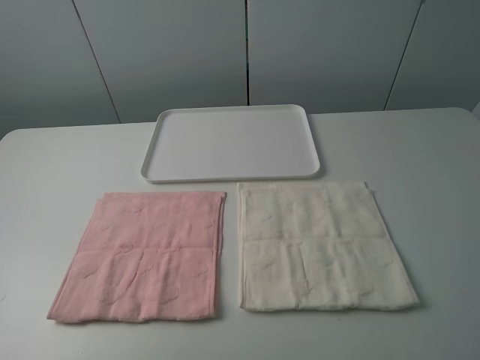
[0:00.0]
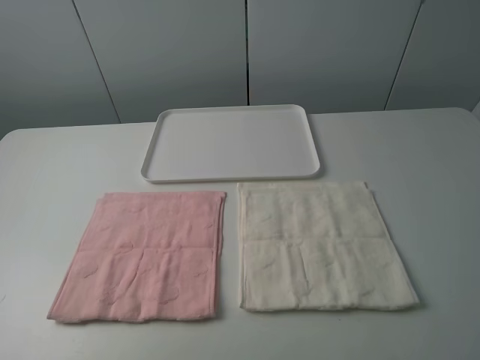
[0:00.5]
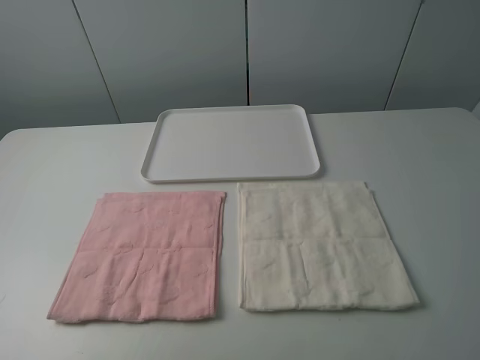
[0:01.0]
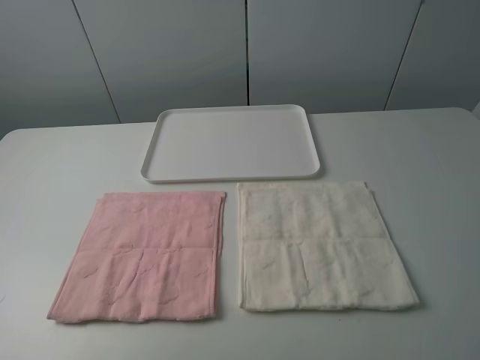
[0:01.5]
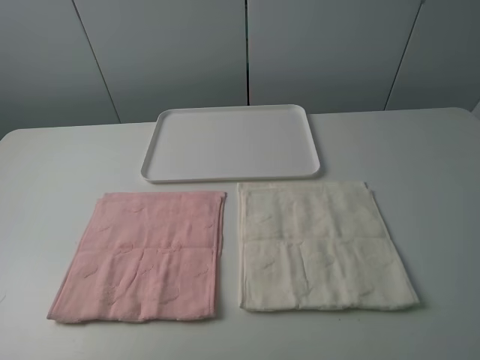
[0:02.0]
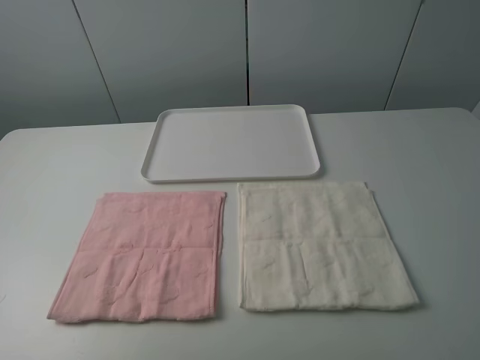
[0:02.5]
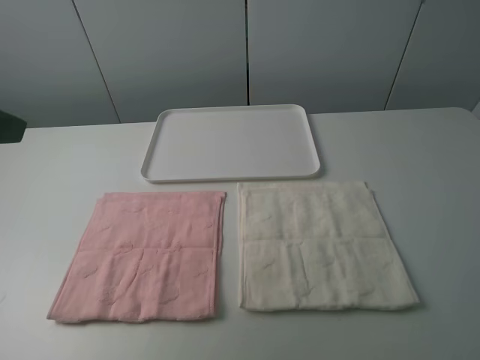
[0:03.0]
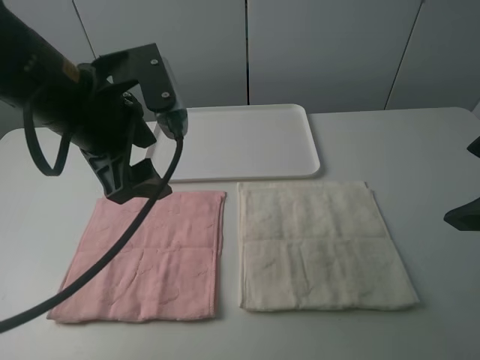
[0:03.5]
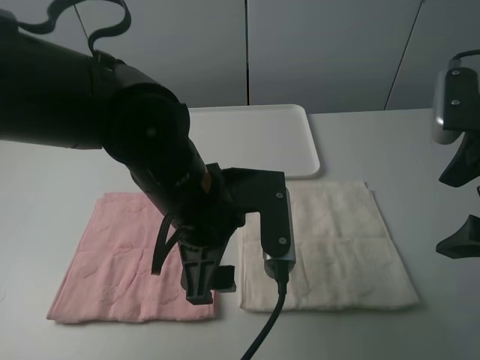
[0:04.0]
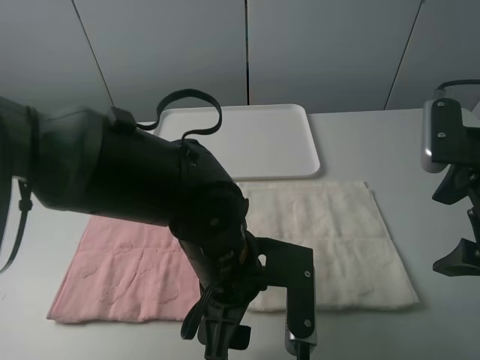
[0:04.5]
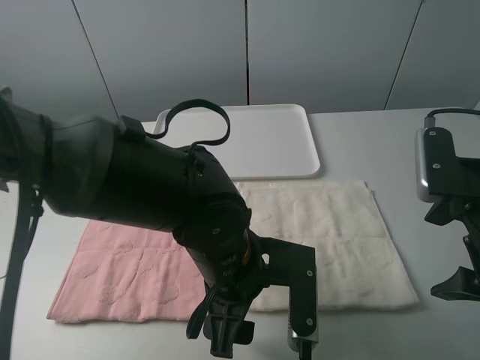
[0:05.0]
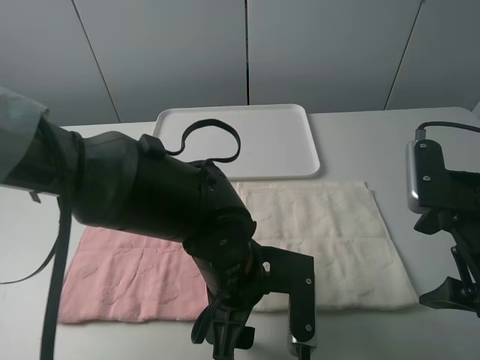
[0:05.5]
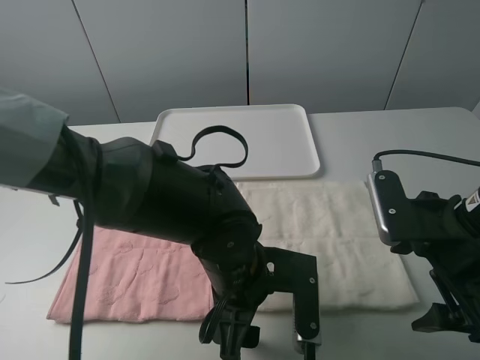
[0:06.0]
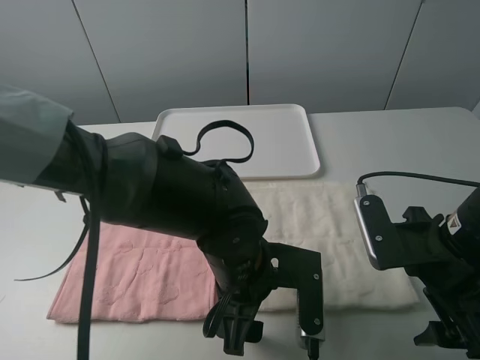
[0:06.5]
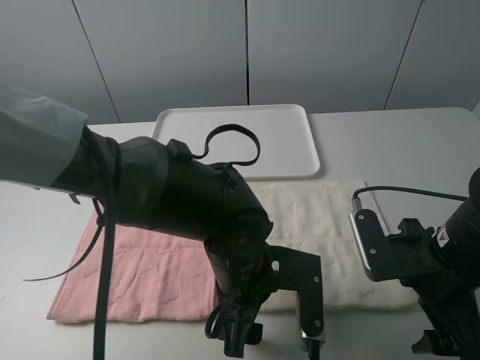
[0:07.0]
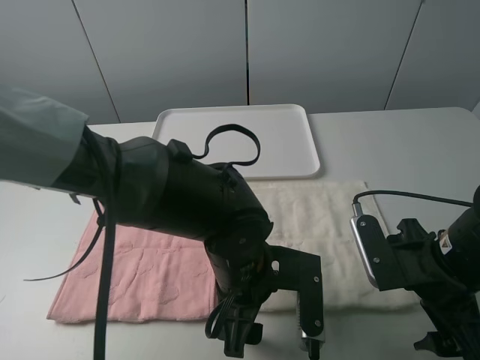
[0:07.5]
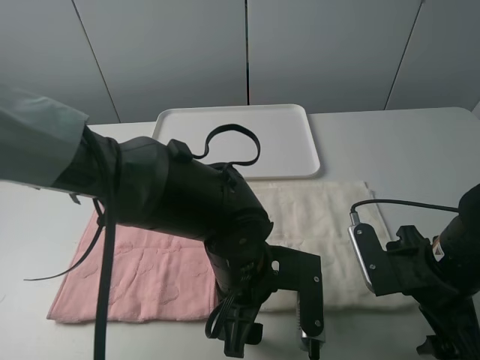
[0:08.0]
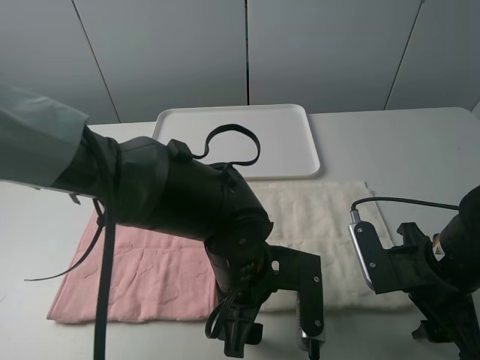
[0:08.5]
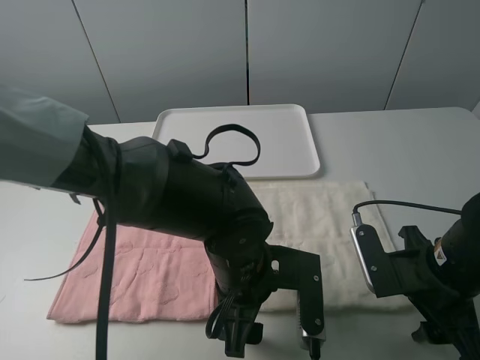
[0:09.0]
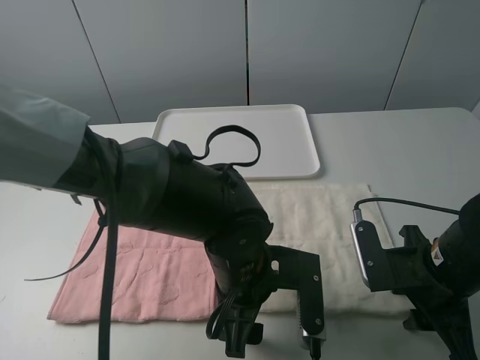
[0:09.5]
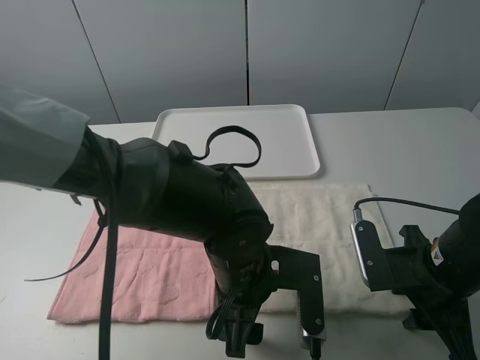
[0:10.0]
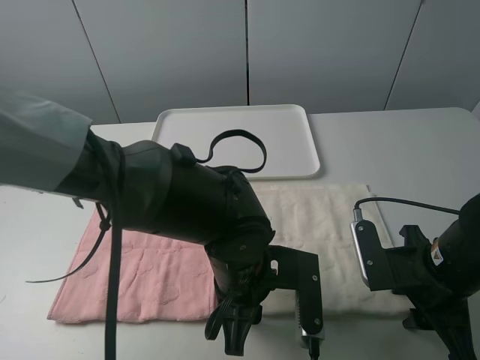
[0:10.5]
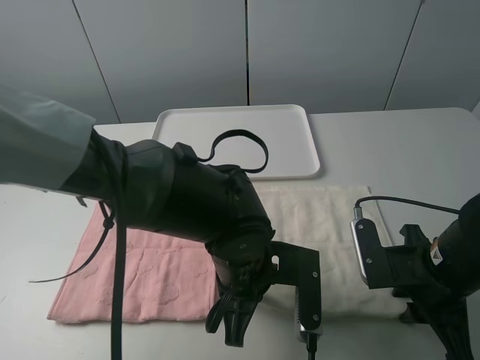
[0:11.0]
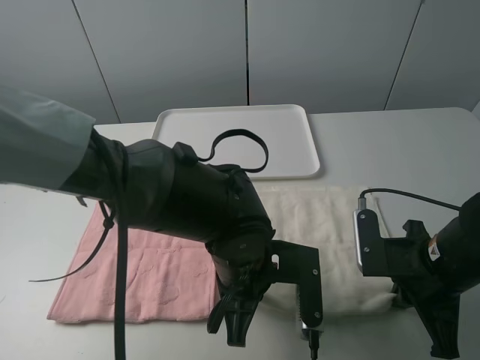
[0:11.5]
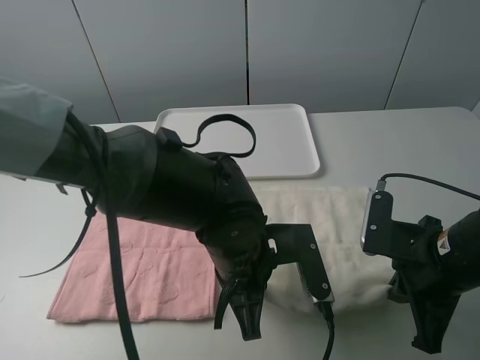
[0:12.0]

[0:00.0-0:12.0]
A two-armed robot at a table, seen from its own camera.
Task of the whole recording: fold one of the towels by two grippers and place it on the tray,then fold another towel by two grippers and place it on the folded towel.
Step, 0:00.0 to 0:11.0: Grasp the white towel with the left gripper.
0:00.0 to 0:02.0: Both grippers stay about where they are.
0:02.0 to 0:04.0: The right gripper moves forward, some 20 cm; the left gripper shifts about 35 cm to the right and forward.
0:04.0 to 0:06.0: Both grippers travel together downward, roughly 10 cm.
0:06.0 to 0:08.0: The right gripper travels downward by roughly 5 cm.
0:08.0 to 0:10.0: The right gripper closes.
0:10.0 to 0:12.0: The left gripper closes, while the right gripper closes its fingers.

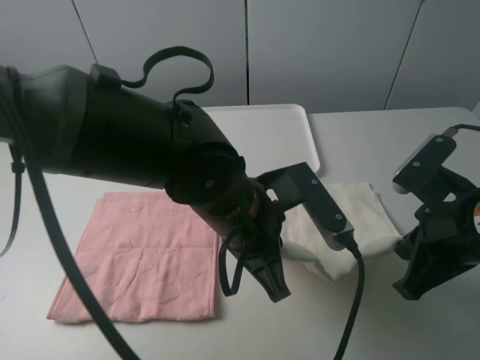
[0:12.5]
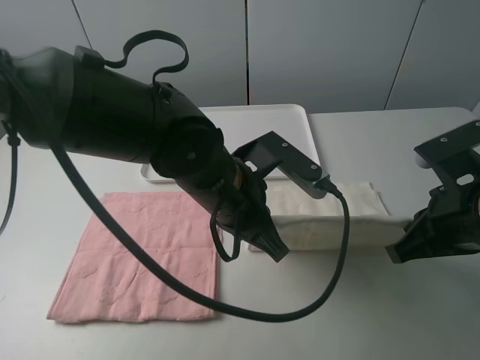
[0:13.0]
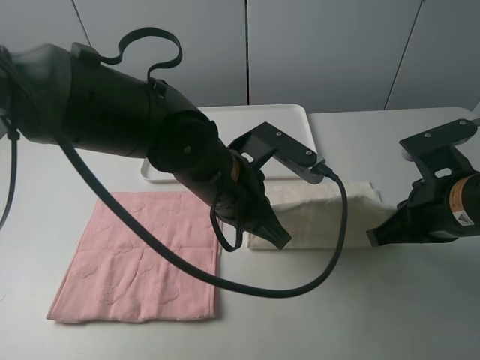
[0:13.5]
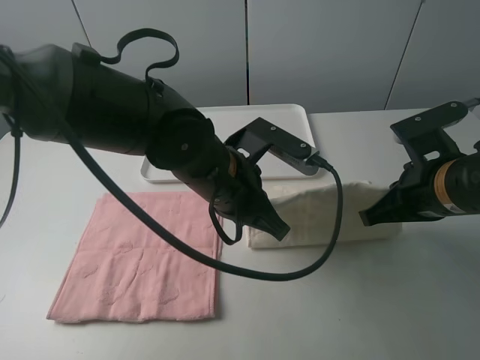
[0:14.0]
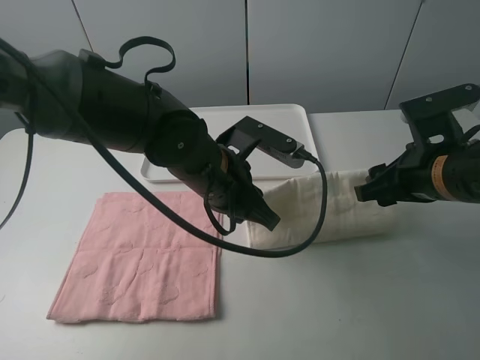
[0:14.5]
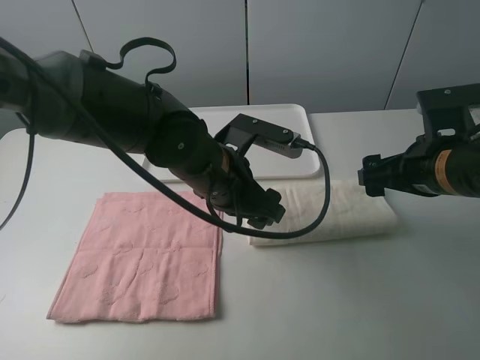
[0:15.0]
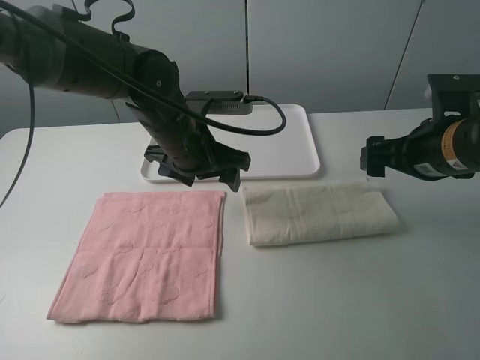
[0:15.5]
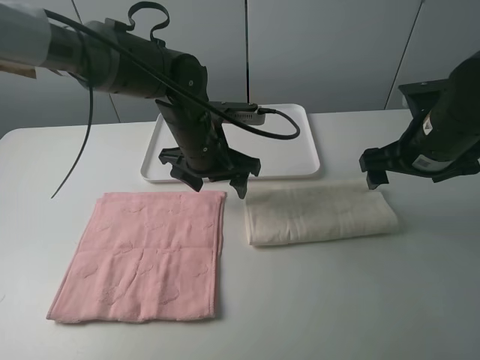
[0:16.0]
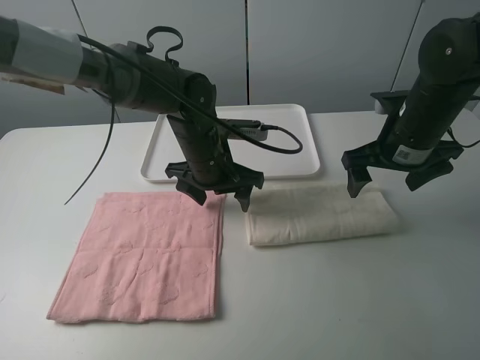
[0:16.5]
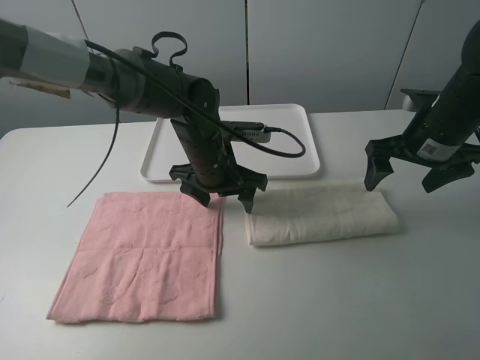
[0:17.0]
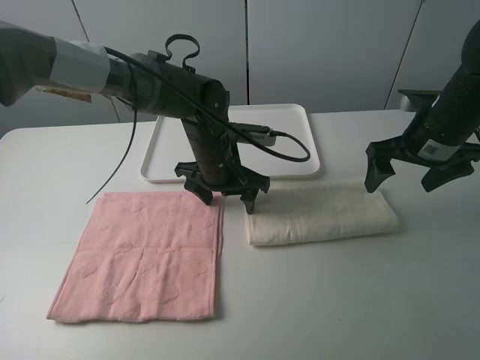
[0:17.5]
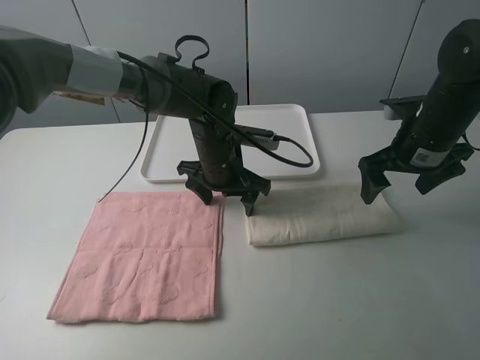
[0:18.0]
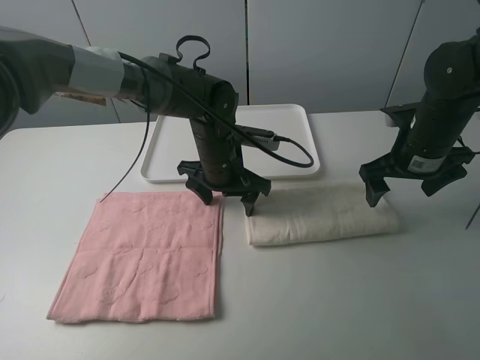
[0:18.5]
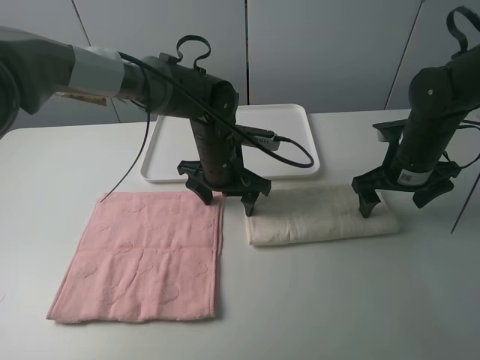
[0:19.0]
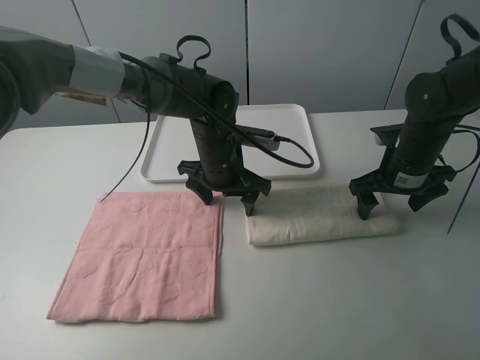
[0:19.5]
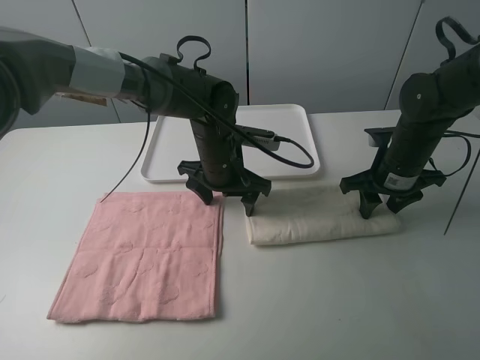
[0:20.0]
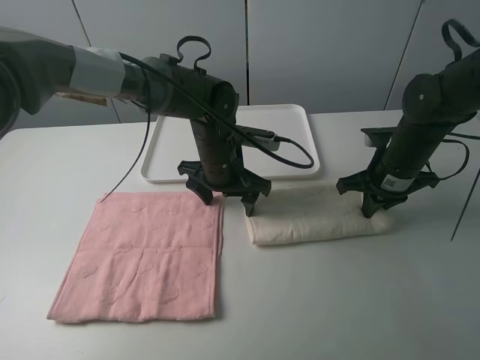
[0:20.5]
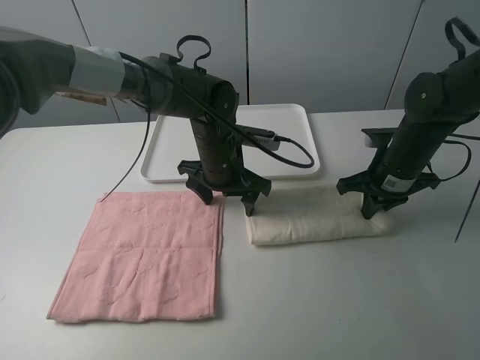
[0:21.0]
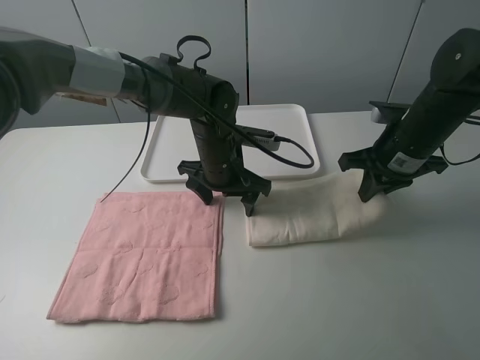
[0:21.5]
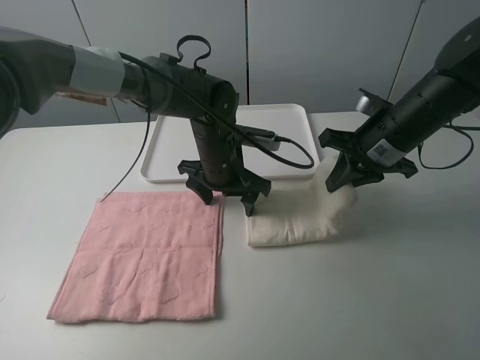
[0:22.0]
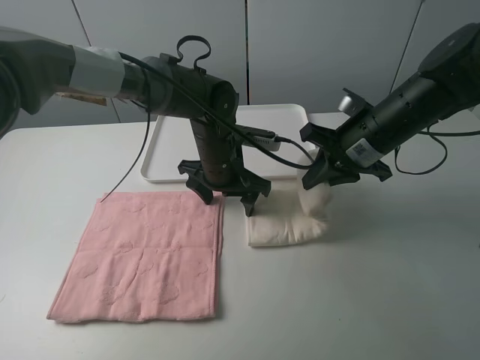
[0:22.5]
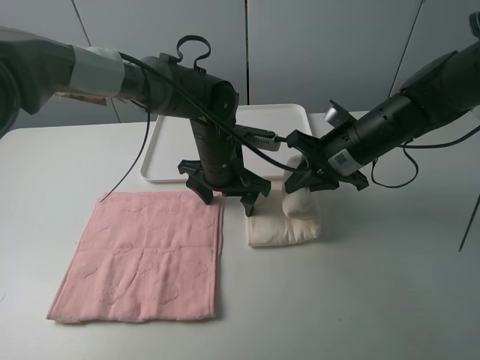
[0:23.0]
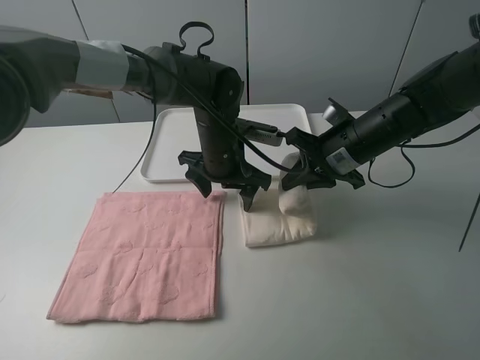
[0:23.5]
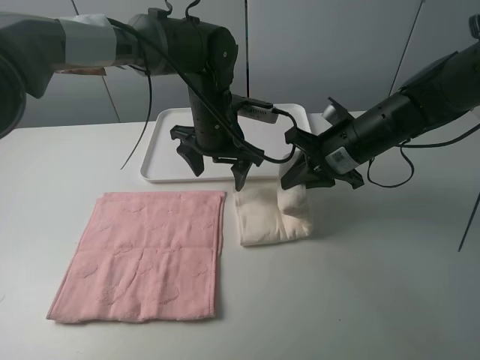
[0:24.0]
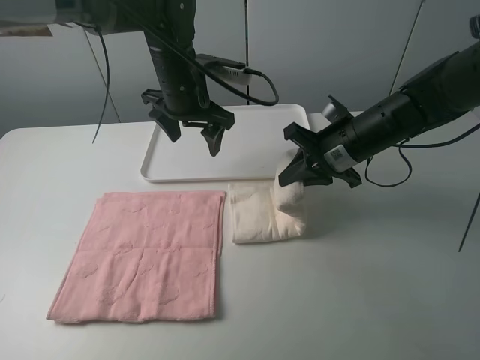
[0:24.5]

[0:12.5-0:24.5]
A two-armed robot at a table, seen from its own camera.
Task of the whole recording: fold one of the towels by two grippers and place it on the tray,then fold another towel by two grippers and place it on the folded towel.
Step, 0:12.5 to 0:14.5: Fold the white towel upwards with the left gripper.
Step, 0:15.0 to 0:18.0: Press the white towel with the left gripper.
Step, 0:18.5 to 0:20.5: Grasp the white towel with the right gripper.
0:12.5 to 0:14.5: The two grippers go roughly 5 cm forward. The right gripper opens. Meanwhile the left gripper opens its fingers.
0:14.5 to 0:16.5: Both grippers move forward, roughly 10 cm. The left gripper opens up.
0:16.5 to 0:18.5: The grippers move only a little.
0:18.5 to 0:20.5: The right gripper moves some 5 cm, and closes its fingers.
0:20.5 to 0:22.5: The right gripper travels upward and to the left by approximately 10 cm.
0:22.5 to 0:24.5: The left gripper travels upward, to the left and forward by some 15 cm.

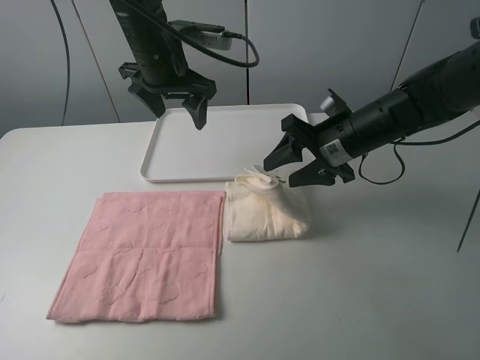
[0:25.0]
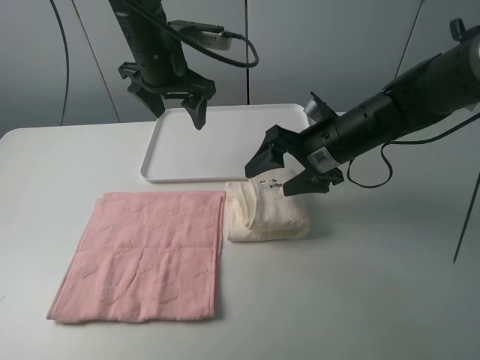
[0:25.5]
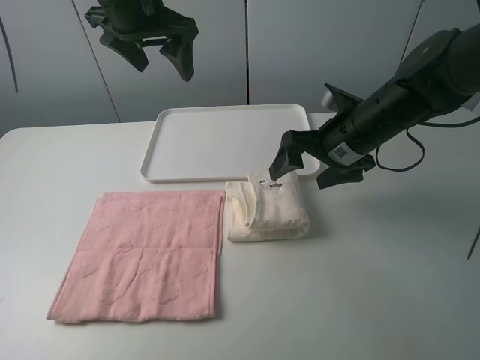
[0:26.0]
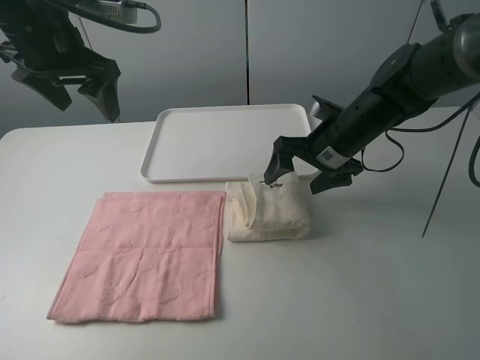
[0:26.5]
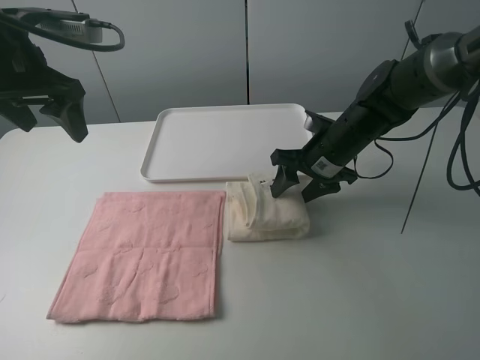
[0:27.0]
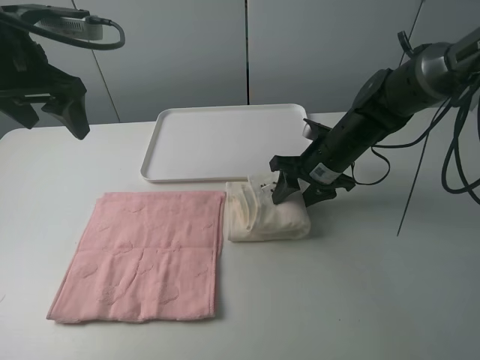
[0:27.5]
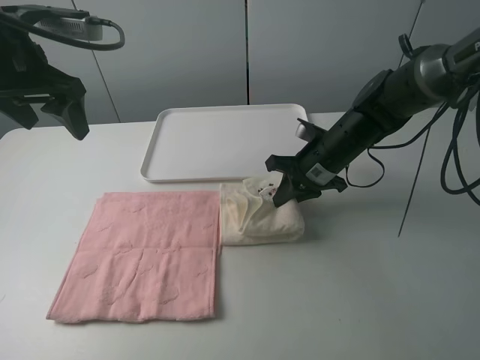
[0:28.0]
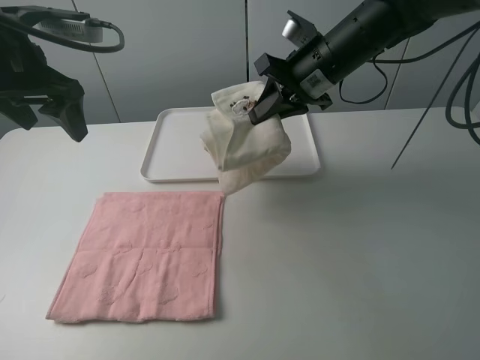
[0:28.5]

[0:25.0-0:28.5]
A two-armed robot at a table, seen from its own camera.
Task of the whole recording: fold one of the towels by two grippers and place it on the tray,then fold another towel by two grippers and place it on the folded towel.
Step, 0:26.0 to 0:27.5: Grasp the white towel with the right gripper.
0:25.0 to 0:27.0: The left gripper travels to the left and backward by some 15 cm.
0:27.0 to 0:28.5: The right gripper goes some 15 cm upward, and closes its fingers.
